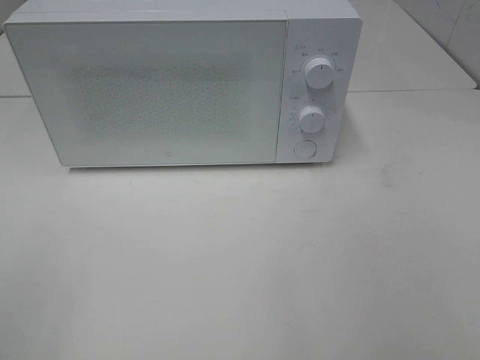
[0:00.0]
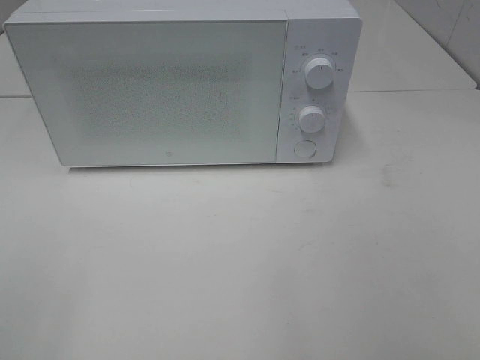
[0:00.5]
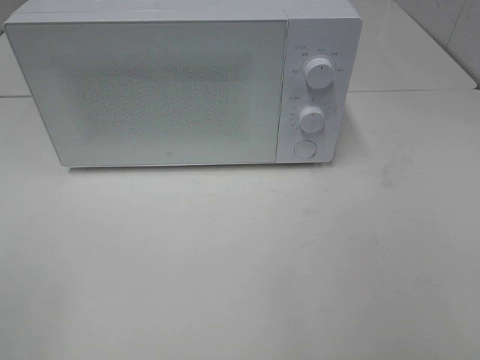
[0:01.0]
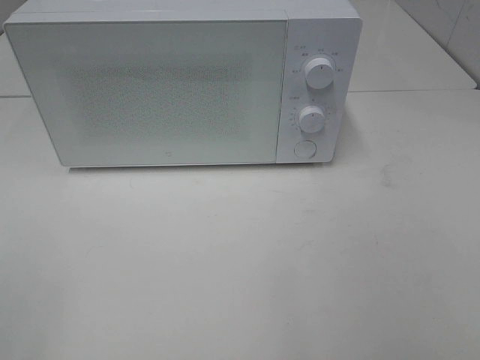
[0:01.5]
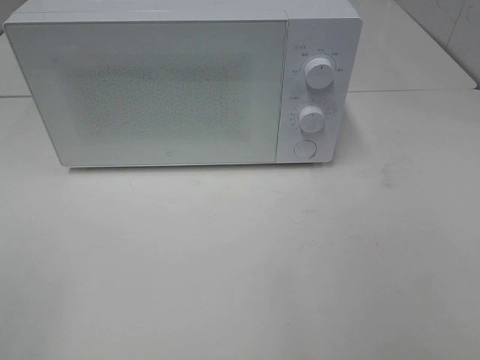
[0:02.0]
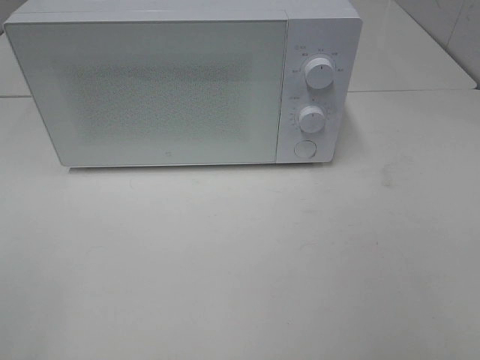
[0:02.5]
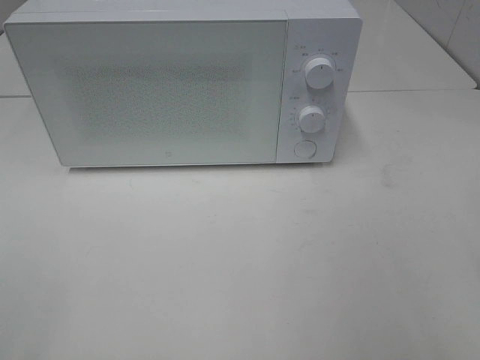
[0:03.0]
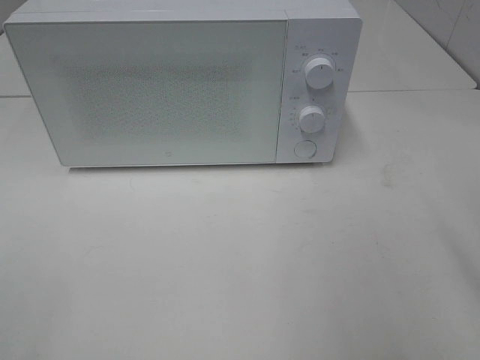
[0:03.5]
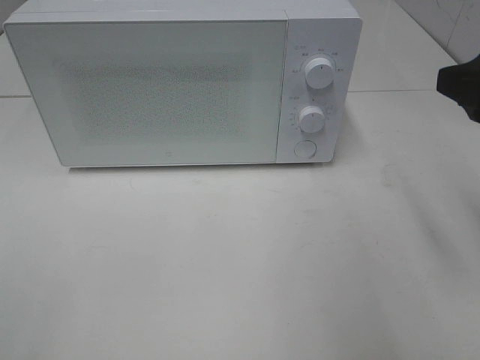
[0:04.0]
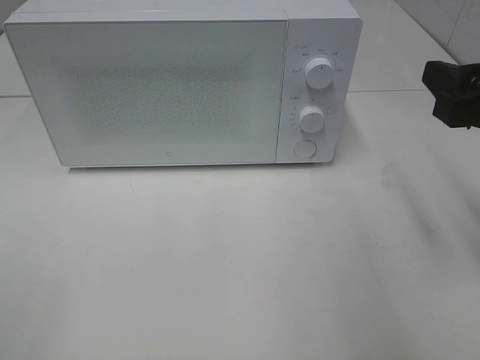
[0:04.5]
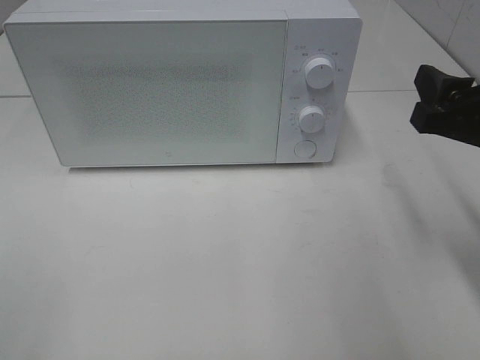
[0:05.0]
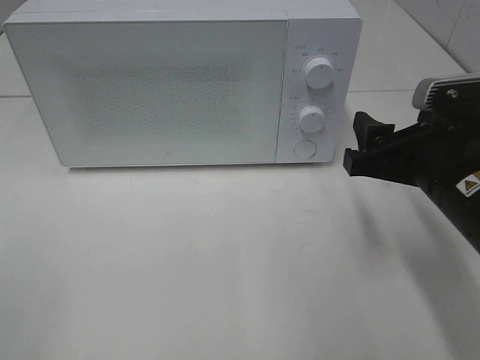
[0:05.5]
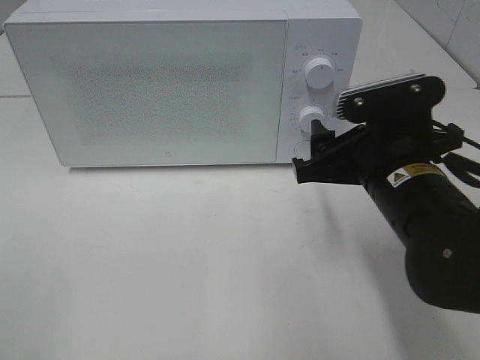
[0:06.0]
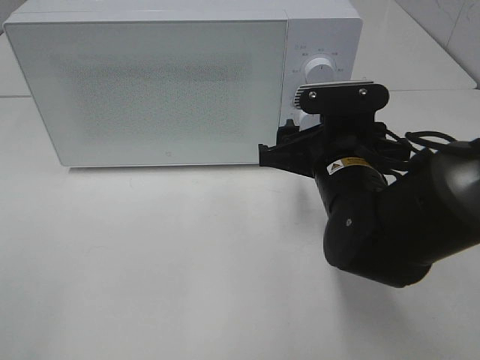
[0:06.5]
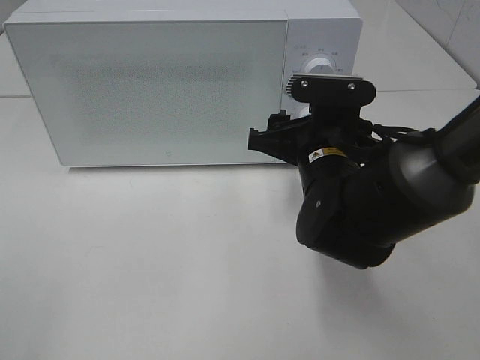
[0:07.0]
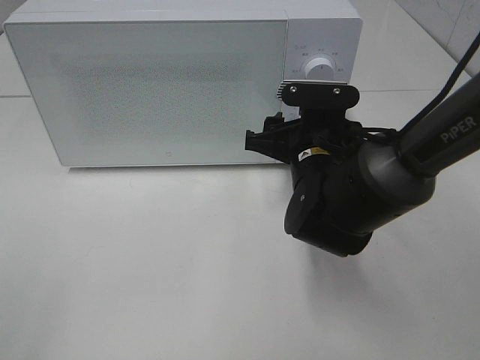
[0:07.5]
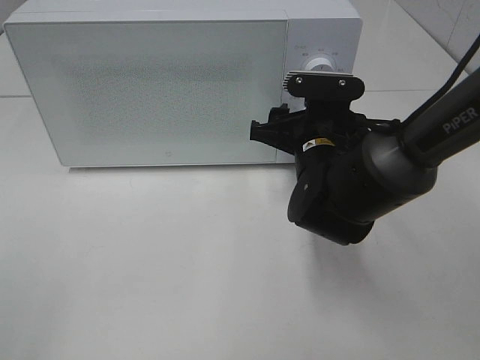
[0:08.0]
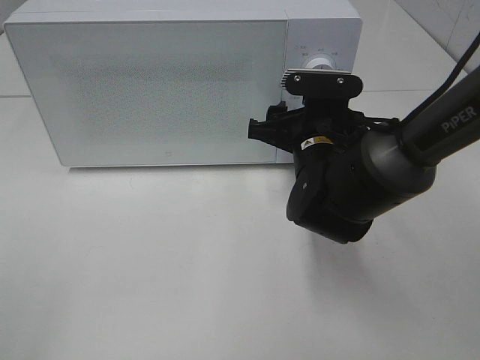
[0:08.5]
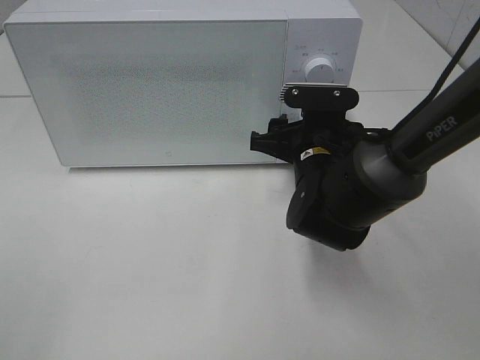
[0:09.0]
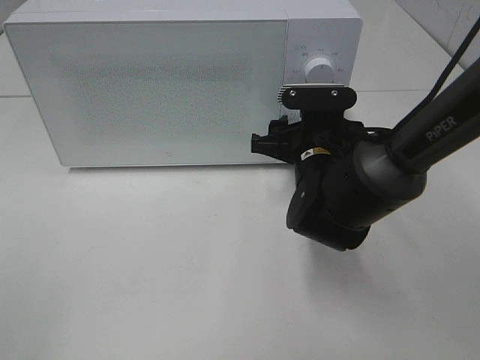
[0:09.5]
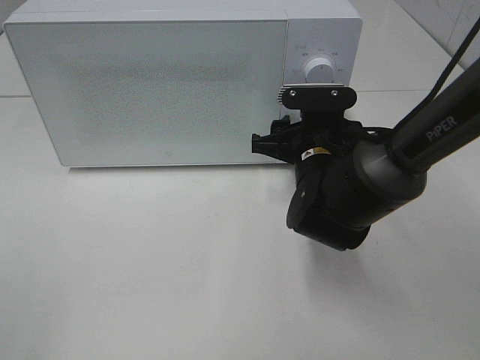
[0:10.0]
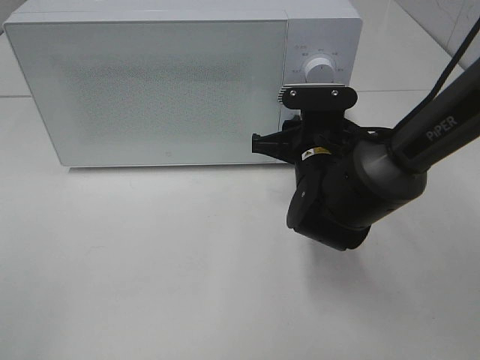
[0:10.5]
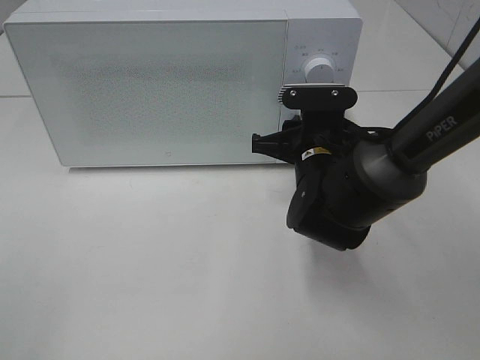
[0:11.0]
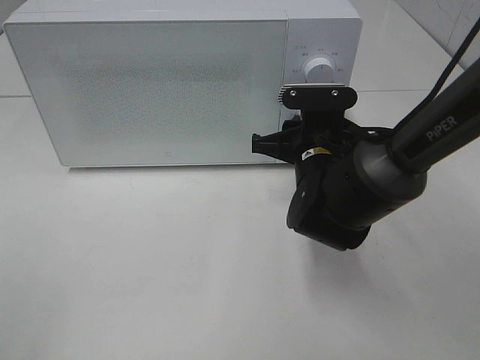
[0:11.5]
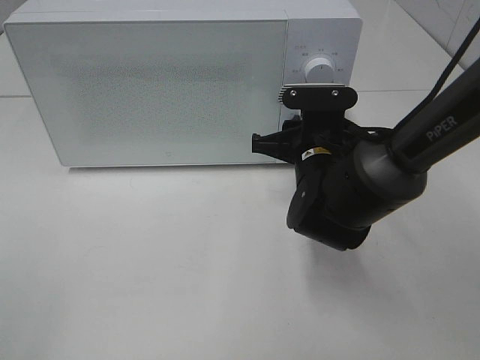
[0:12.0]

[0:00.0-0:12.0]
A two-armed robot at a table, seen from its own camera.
Task of the whole recording: Heat the burger.
0:02.0 to 0:04.0: The right gripper goes about 20 cm forward.
0:04.0 to 0:06.0: The right gripper travels downward and to the left by about 15 cm.
0:06.0 to 0:08.0: The right gripper moves forward, about 10 cm.
0:08.0 to 0:10.0: The grippers make only small movements.
0:10.0 to 0:12.0: Both grippers stay about where they are.

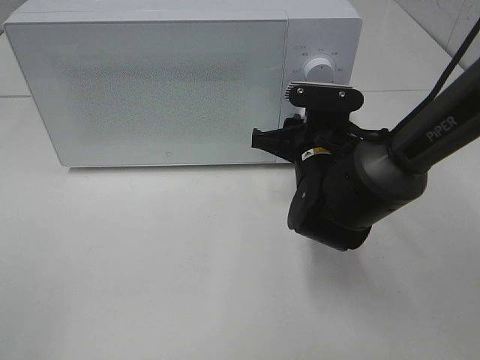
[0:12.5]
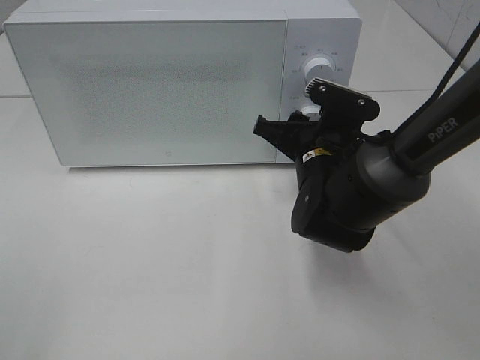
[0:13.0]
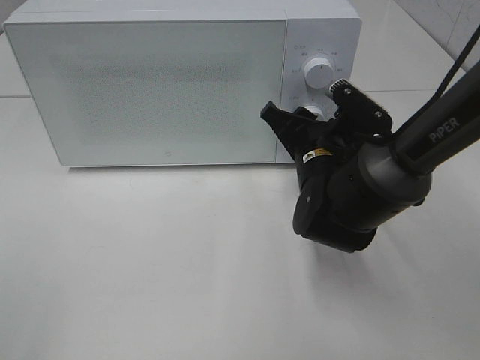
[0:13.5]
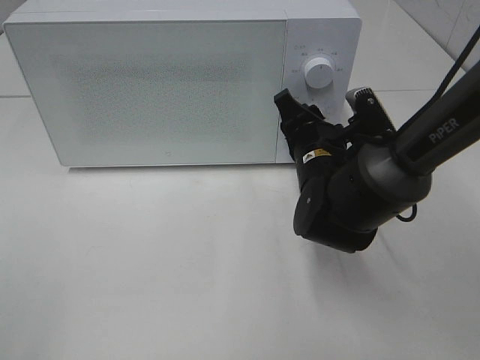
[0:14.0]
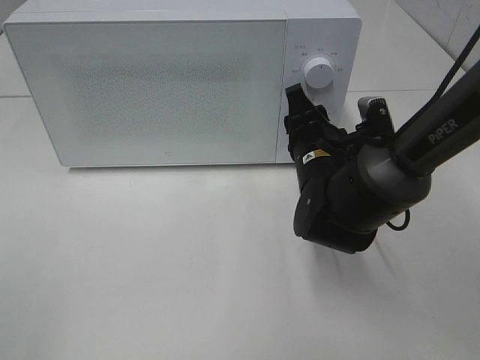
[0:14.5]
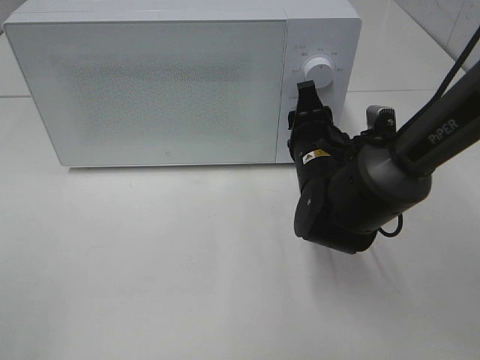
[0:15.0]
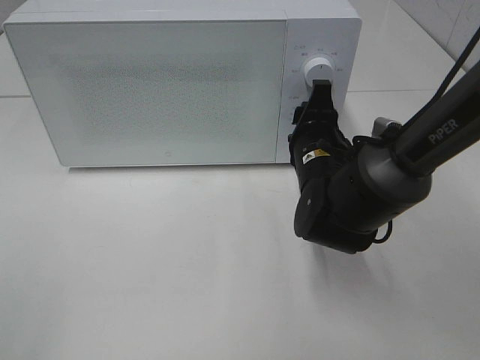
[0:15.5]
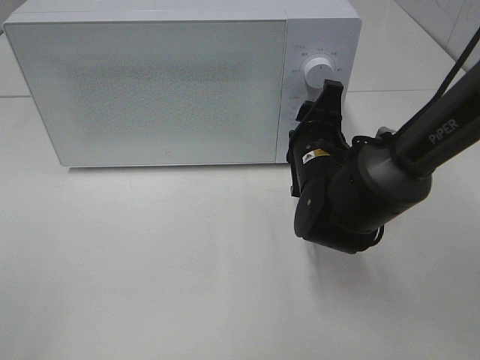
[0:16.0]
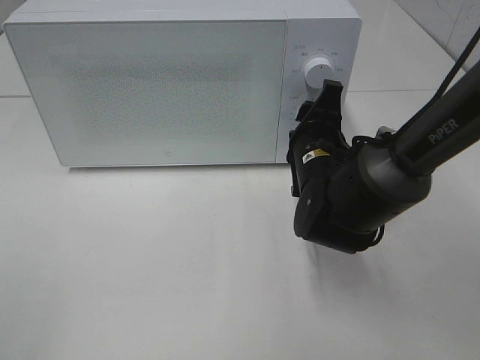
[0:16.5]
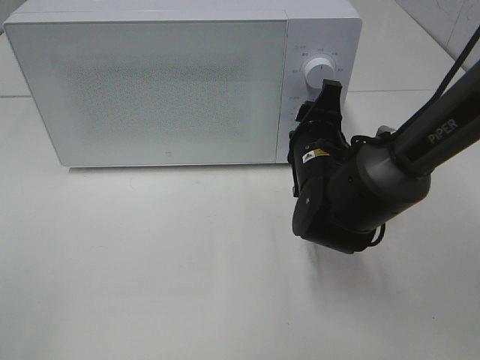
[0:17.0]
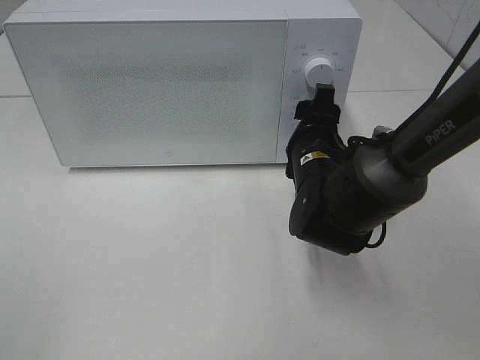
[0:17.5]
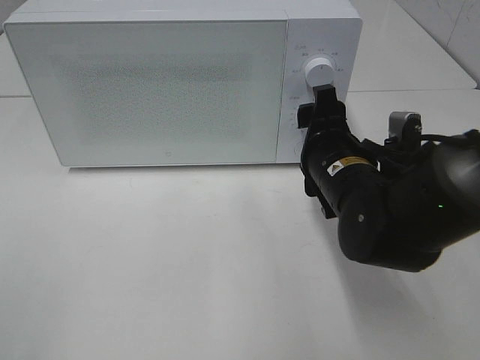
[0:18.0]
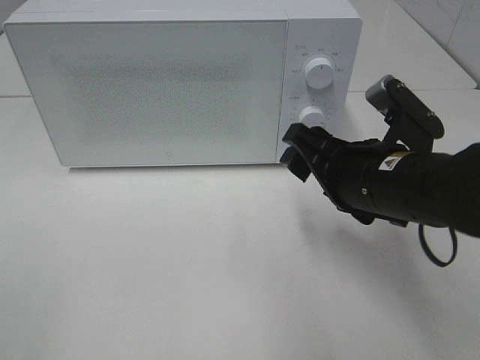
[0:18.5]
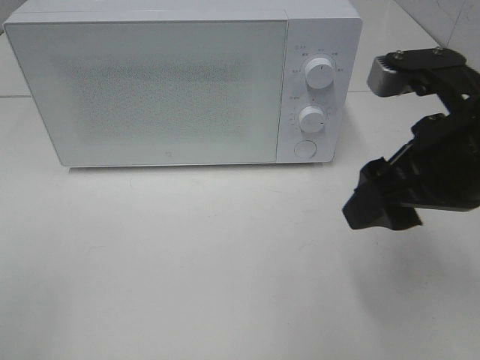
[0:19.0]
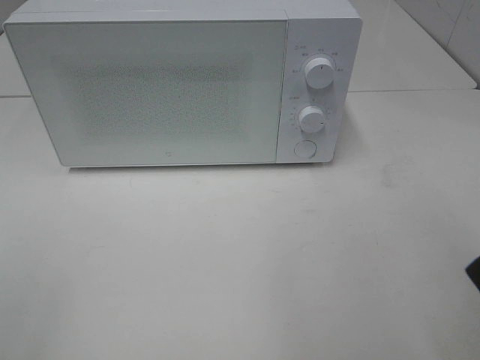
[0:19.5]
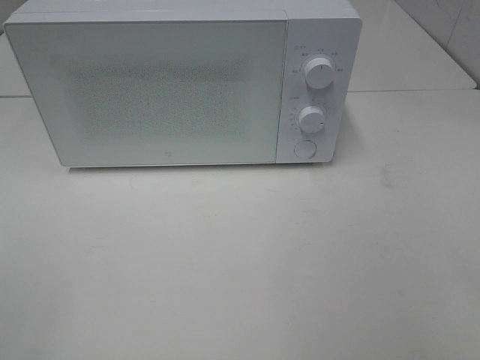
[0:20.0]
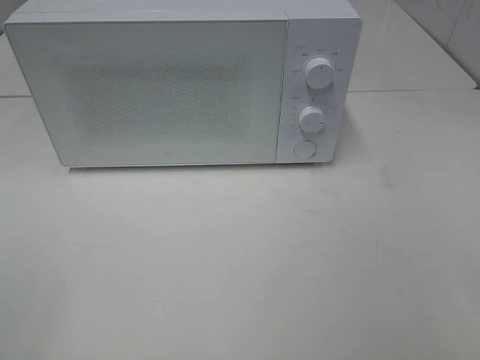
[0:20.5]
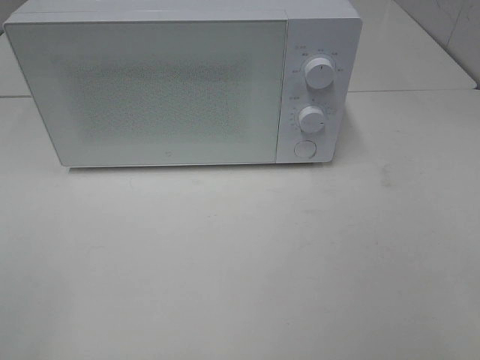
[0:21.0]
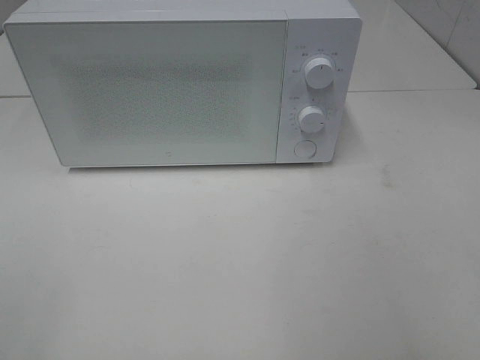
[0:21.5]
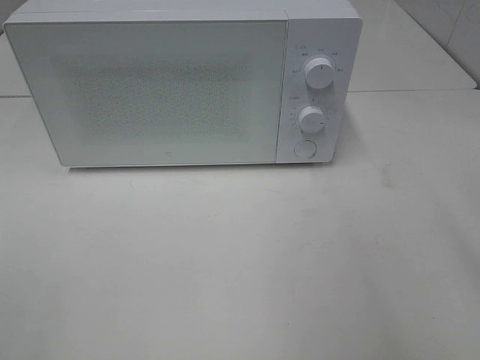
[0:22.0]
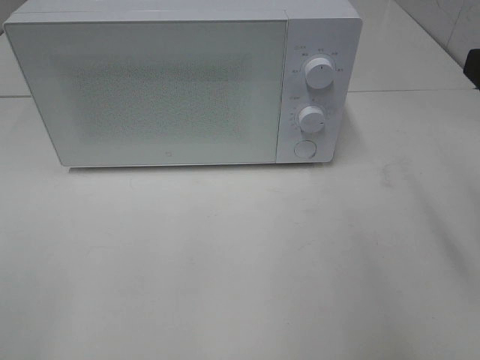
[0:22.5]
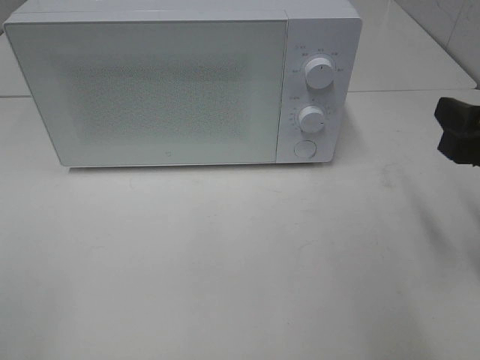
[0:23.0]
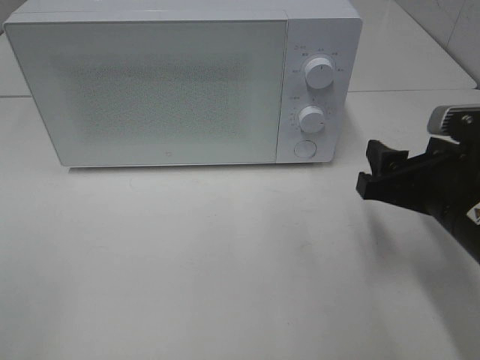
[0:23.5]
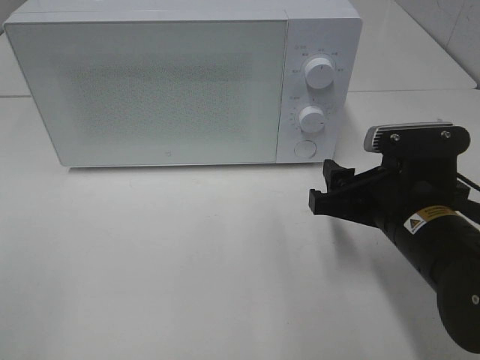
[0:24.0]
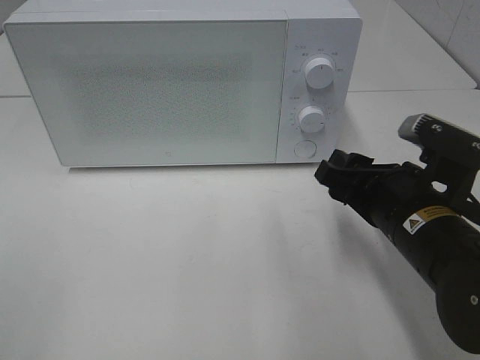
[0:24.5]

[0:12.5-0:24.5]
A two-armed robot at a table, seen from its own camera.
Task of the whole recording: Heat the burger.
Step, 0:12.5 to 0:17.5: Right hand: twist timer button.
0:16.5 to 0:18.5: The right gripper is displaced backward and upward by approximately 10 cm.
0:18.5 to 0:20.5: The right gripper moves backward, to the right and upward, about 30 cm.
0:22.5 to 0:24.5: The right gripper is displaced downward and to the left by some 15 cm.

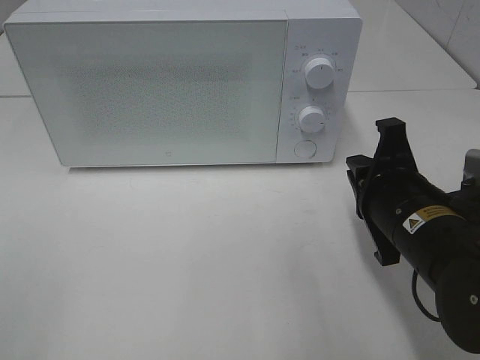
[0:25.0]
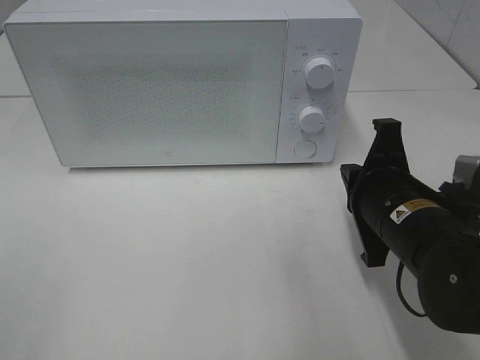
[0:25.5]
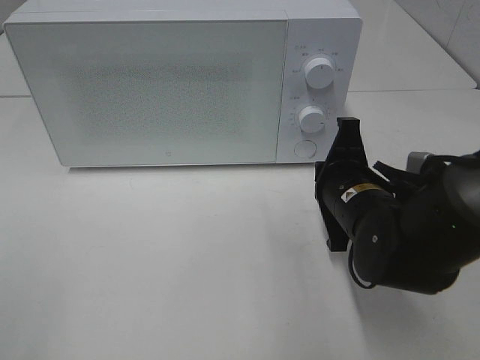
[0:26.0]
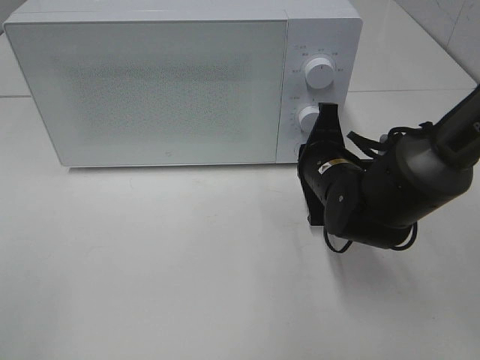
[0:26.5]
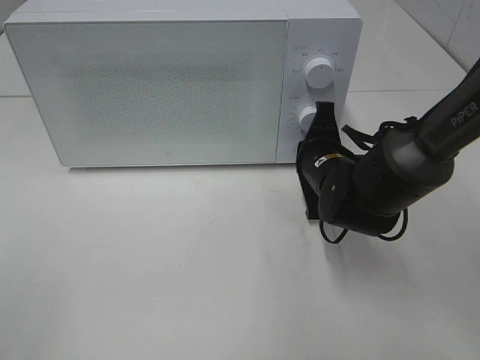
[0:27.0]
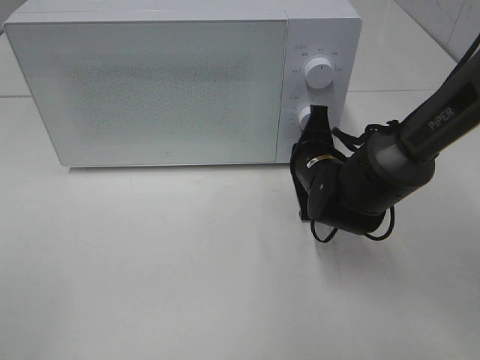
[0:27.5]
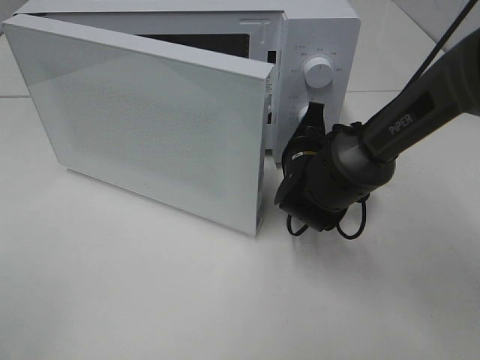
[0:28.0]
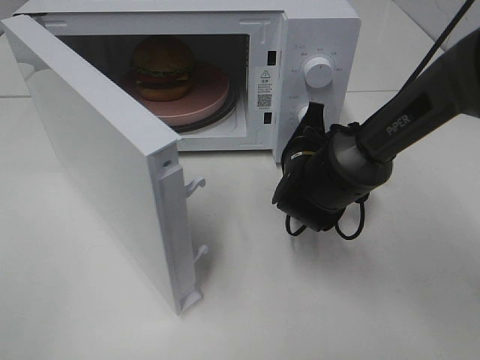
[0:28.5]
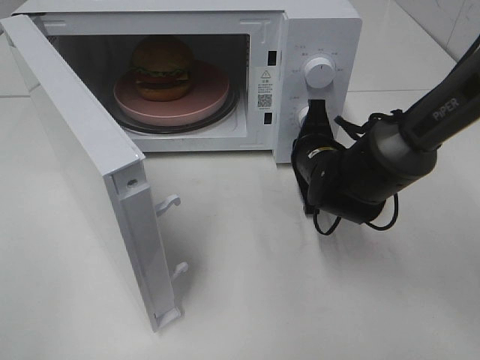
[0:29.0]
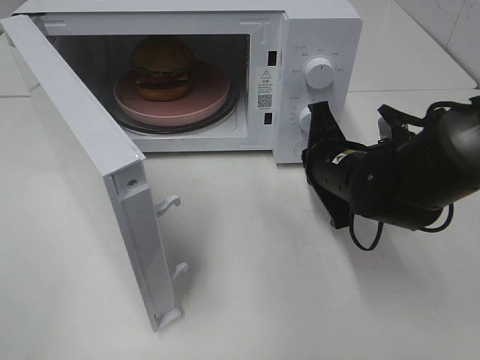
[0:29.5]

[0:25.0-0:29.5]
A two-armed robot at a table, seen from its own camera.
Task of the whole recording: Heat the burger.
Step, 0:25.0 to 0:29.5: Right hand: press the switch.
0:25.0 to 0:27.0: The right gripper heads forward and downward, covering about 15 cm.
